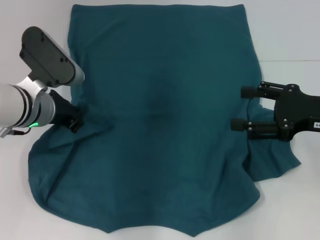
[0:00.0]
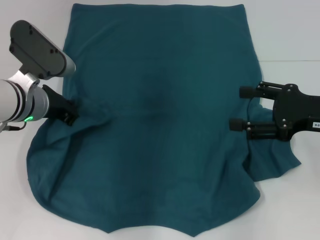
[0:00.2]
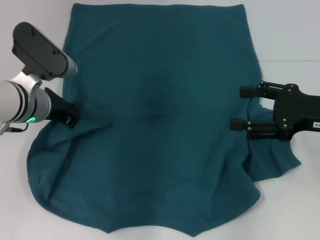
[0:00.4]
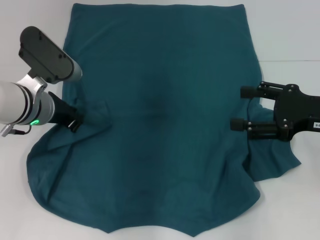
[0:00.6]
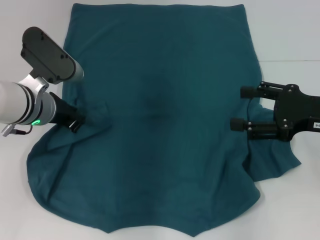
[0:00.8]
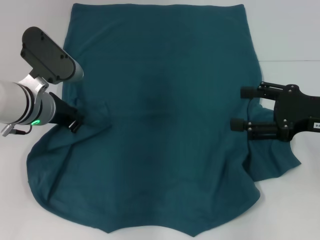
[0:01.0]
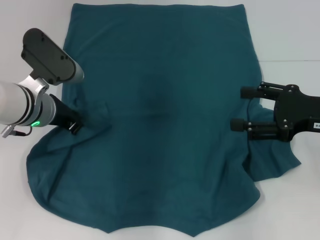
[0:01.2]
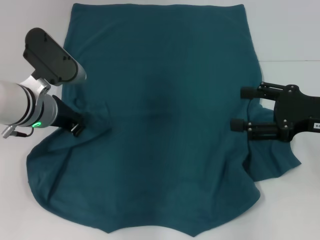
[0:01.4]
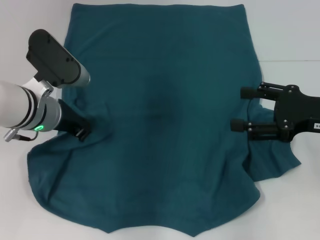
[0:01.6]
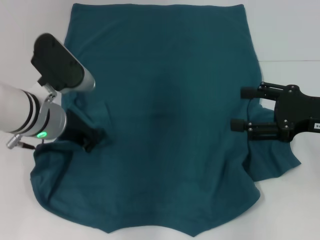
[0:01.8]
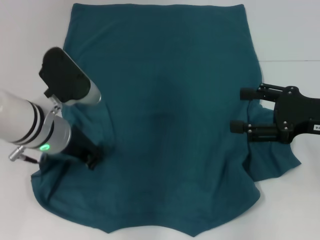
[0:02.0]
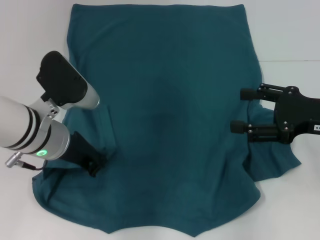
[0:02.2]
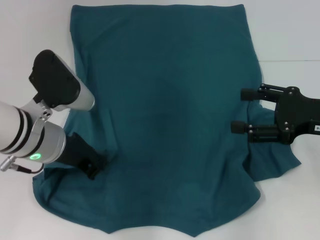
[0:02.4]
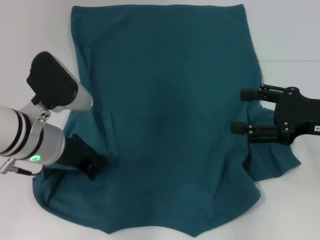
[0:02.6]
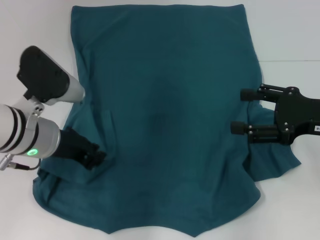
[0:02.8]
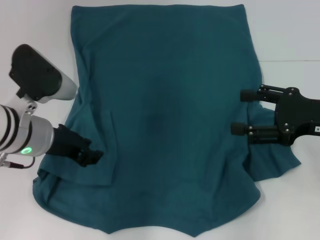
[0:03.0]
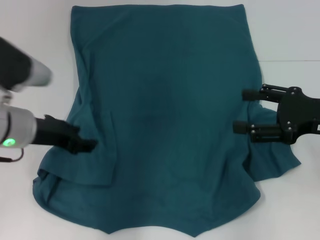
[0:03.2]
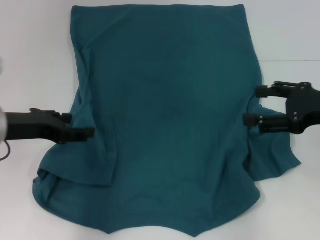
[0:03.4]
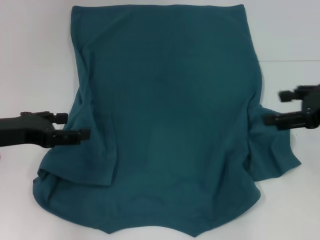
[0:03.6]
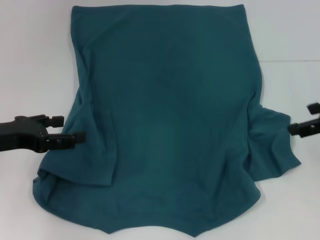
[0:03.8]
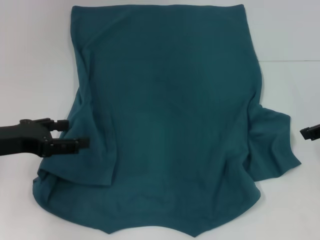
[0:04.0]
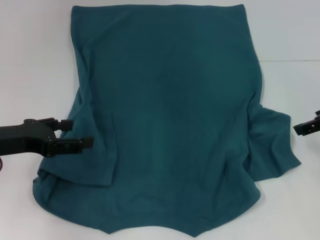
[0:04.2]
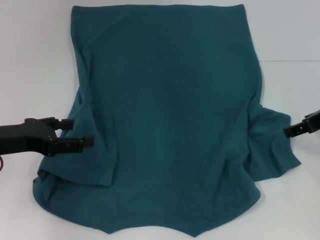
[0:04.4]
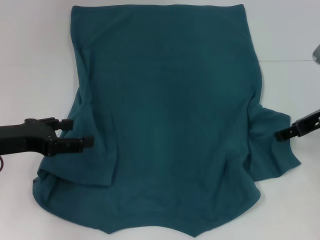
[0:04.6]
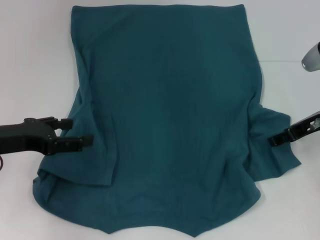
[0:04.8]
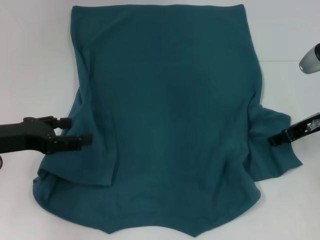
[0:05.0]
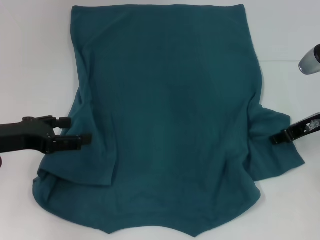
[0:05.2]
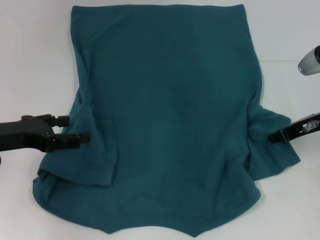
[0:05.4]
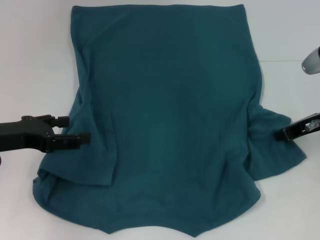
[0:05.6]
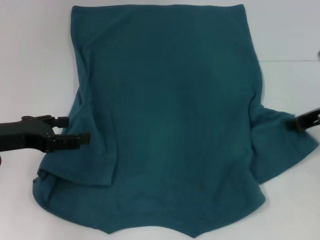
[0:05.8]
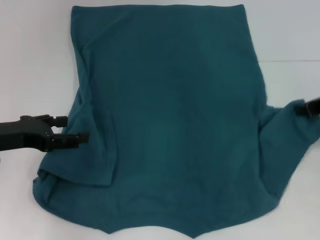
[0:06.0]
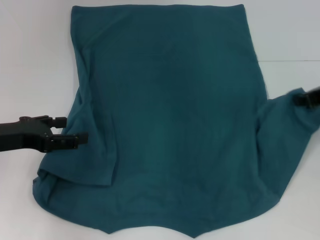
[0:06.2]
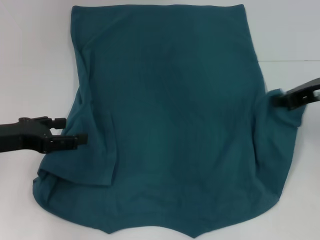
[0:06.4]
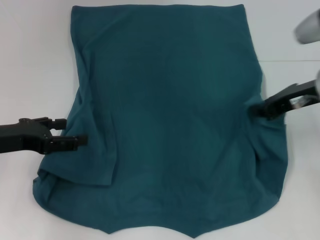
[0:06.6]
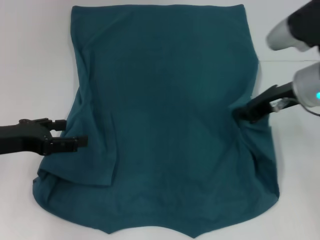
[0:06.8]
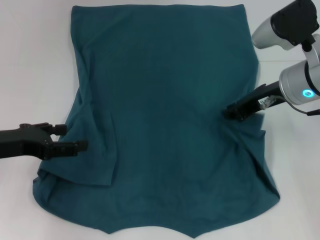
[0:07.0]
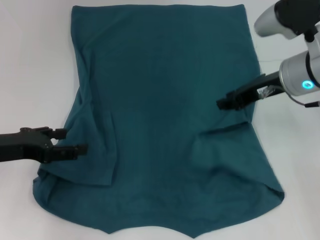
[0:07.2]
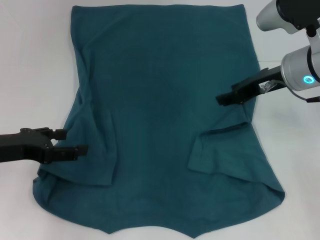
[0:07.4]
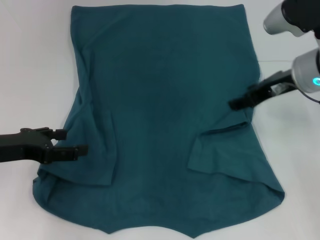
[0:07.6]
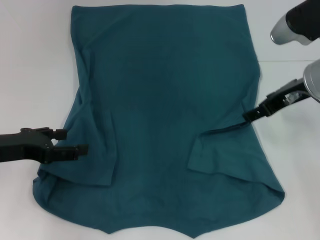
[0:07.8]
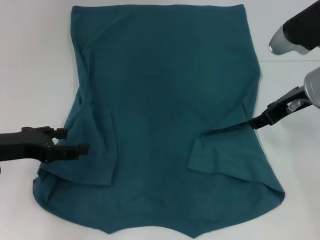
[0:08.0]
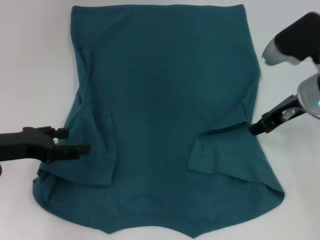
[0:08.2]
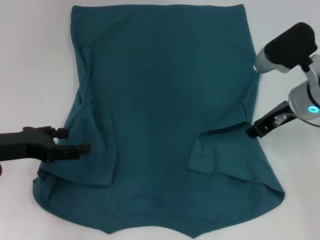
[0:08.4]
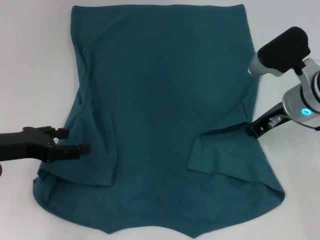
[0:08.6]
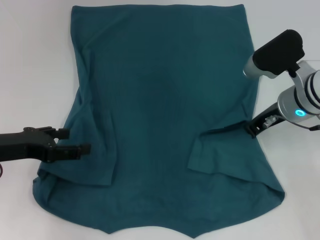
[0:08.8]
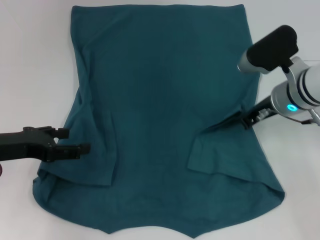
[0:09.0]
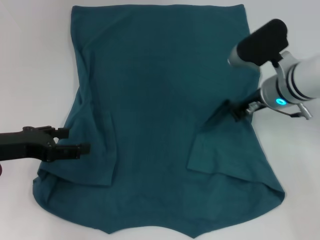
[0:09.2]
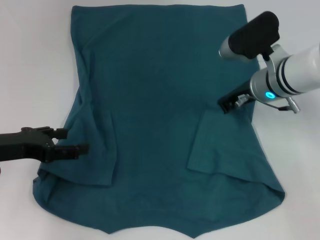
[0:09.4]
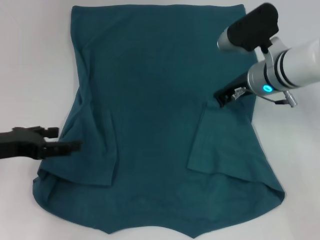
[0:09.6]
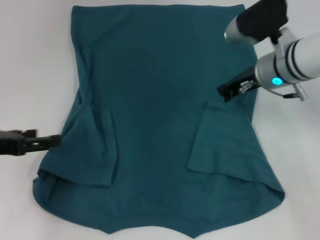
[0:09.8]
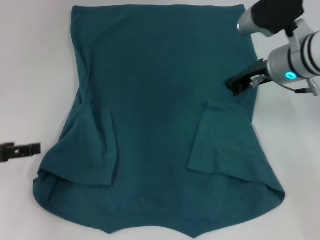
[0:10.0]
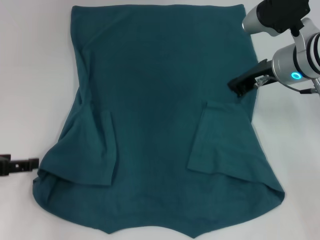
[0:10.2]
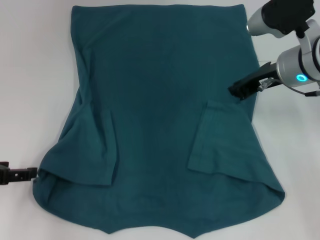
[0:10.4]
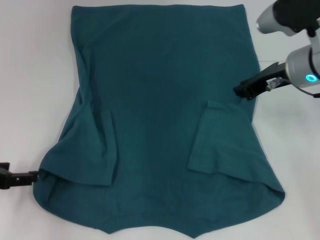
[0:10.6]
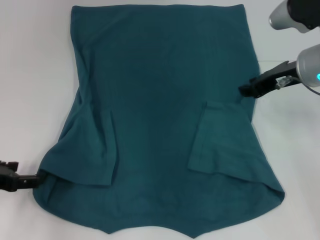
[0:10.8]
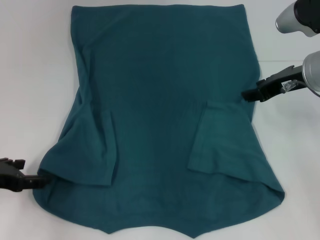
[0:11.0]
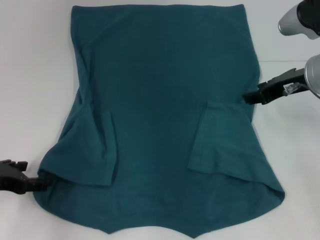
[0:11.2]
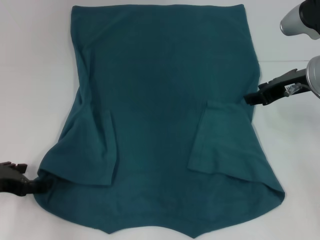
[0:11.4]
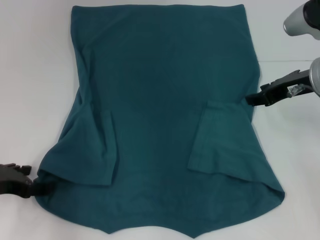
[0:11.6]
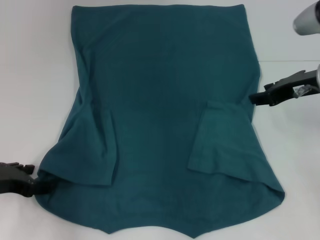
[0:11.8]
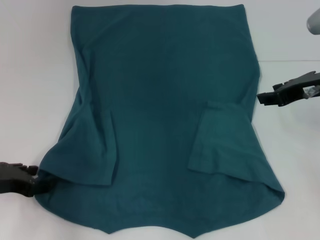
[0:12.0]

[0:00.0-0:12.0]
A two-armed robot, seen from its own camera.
Step, 0.0 to 3.0 s: Fold the bottom left sleeve with your left hand.
Step, 3.2 to 9.4 s: Fold the bottom right sleeve to the right.
0.0 to 1.6 s: The grippers stay close to where they were, moving slightly.
1.6 to 3.0 s: The grippers stay close to where they were, moving slightly.
3.0 to 4.4 s: The left gripper goes about 10 cm to the left, and opens up, while the right gripper moves forward, approximately 5 cm.
4.4 to 6.0 s: The right gripper closes up.
6.0 to 7.6 s: The right gripper heads to the left, covering roughly 10 cm, and opens its fingers.
7.6 to 9.0 s: The right gripper goes roughly 5 cm downward, and closes its fingers.
9.0 to 10.4 s: The left gripper ends up about 5 cm from where it was. Meanwhile the right gripper moves upward, roughly 5 cm.
10.4 to 12.0 s: The right gripper moves to the right, approximately 5 cm, and opens.

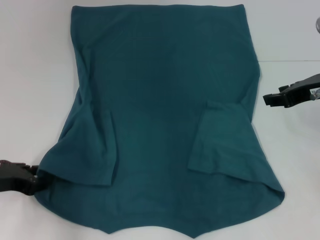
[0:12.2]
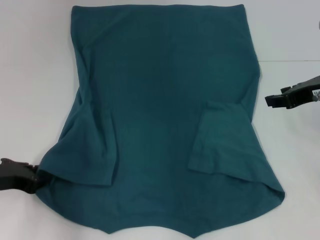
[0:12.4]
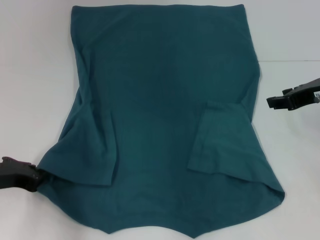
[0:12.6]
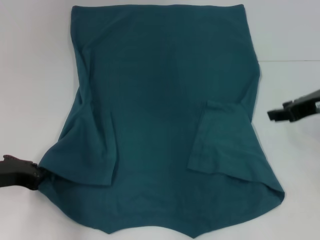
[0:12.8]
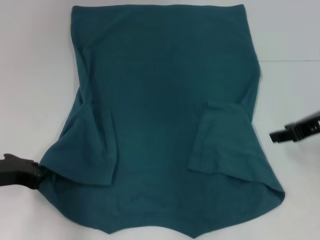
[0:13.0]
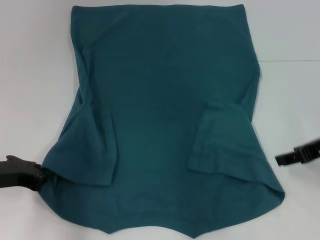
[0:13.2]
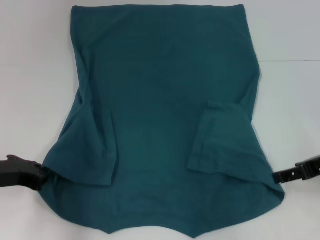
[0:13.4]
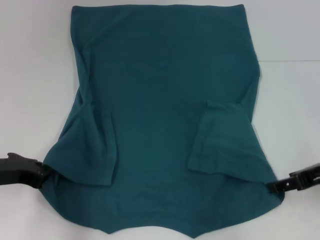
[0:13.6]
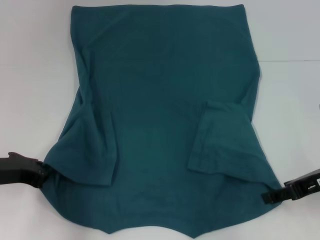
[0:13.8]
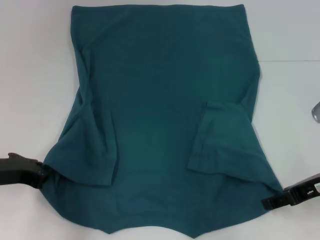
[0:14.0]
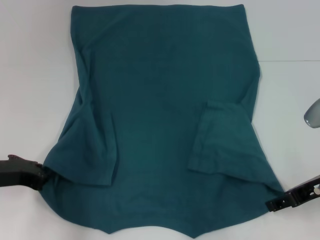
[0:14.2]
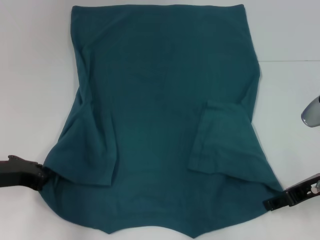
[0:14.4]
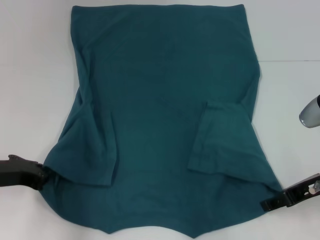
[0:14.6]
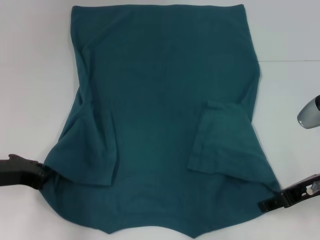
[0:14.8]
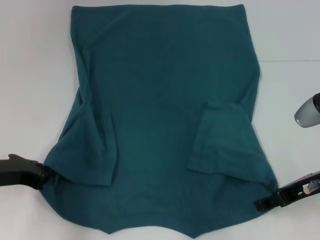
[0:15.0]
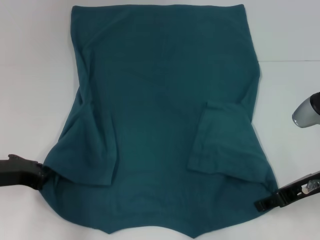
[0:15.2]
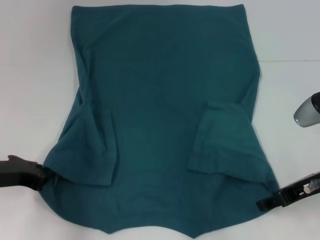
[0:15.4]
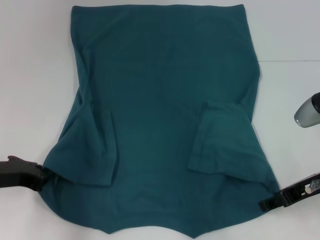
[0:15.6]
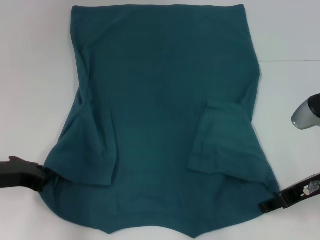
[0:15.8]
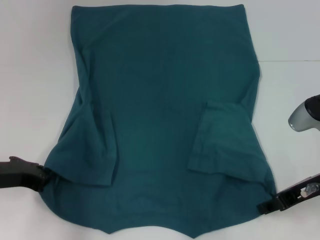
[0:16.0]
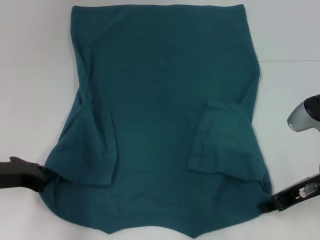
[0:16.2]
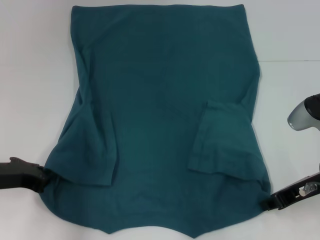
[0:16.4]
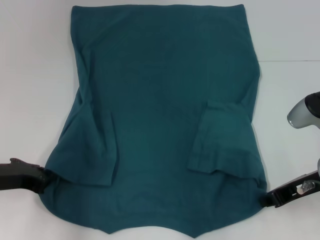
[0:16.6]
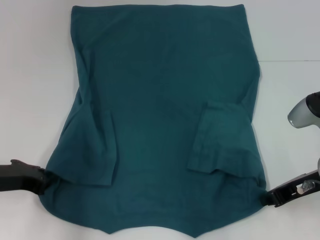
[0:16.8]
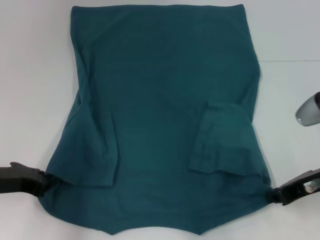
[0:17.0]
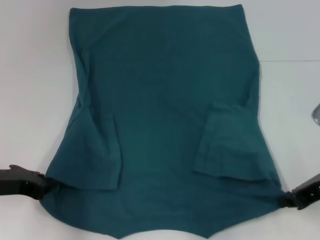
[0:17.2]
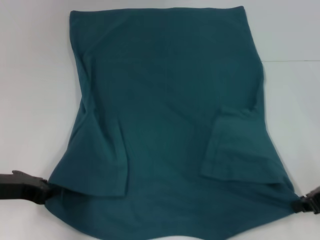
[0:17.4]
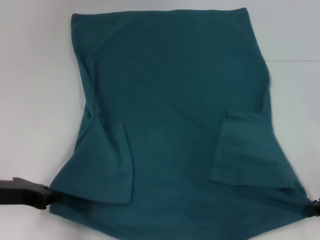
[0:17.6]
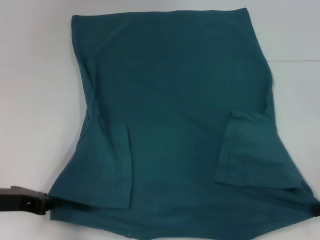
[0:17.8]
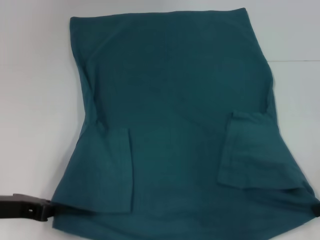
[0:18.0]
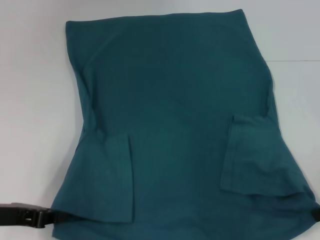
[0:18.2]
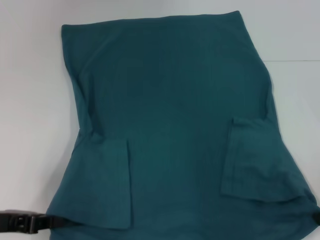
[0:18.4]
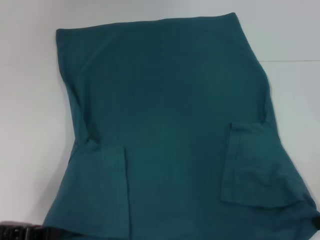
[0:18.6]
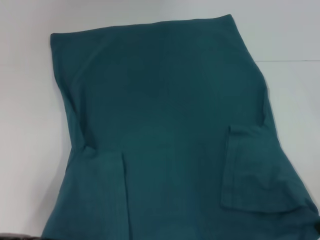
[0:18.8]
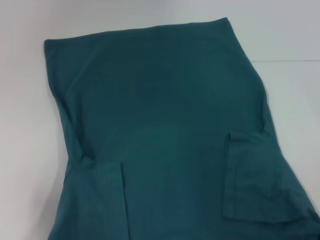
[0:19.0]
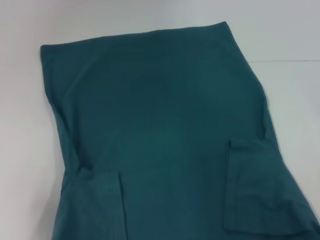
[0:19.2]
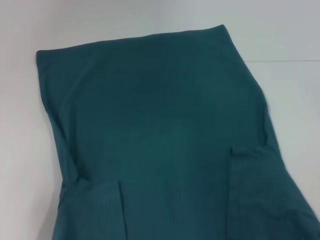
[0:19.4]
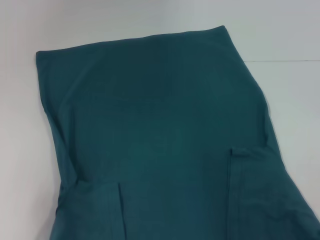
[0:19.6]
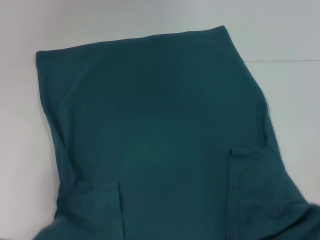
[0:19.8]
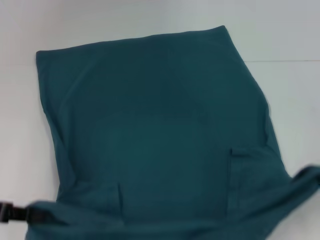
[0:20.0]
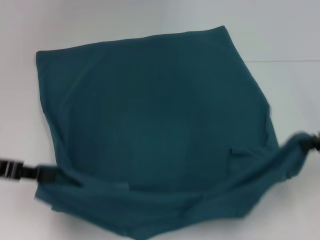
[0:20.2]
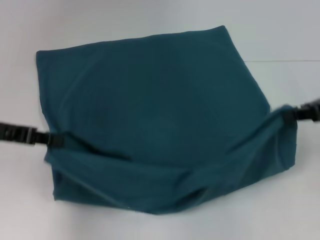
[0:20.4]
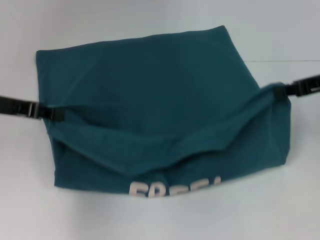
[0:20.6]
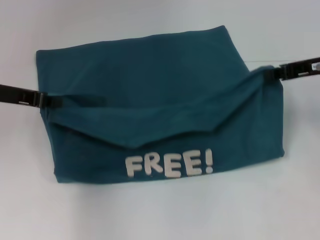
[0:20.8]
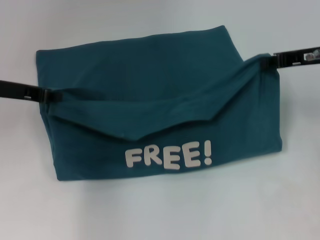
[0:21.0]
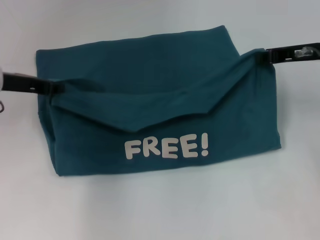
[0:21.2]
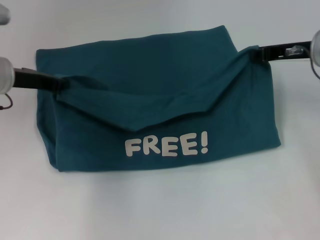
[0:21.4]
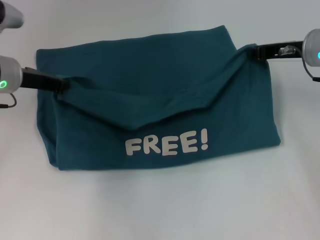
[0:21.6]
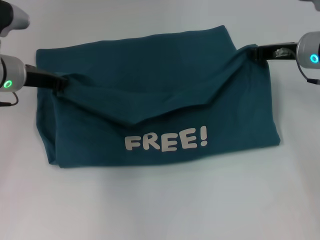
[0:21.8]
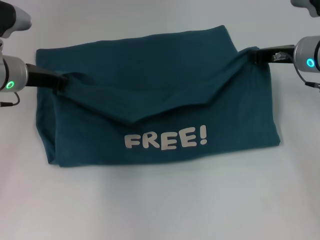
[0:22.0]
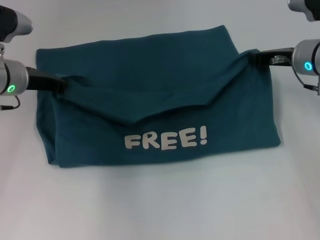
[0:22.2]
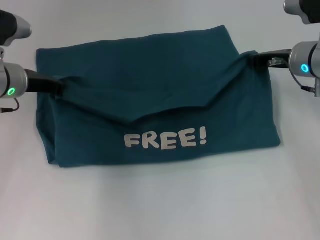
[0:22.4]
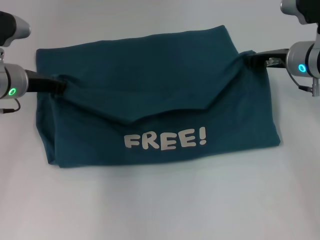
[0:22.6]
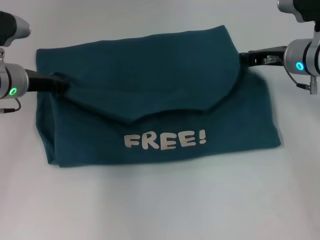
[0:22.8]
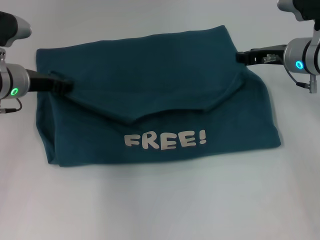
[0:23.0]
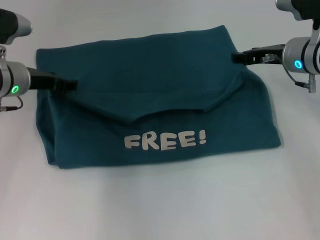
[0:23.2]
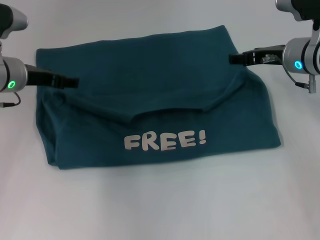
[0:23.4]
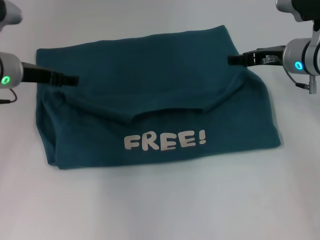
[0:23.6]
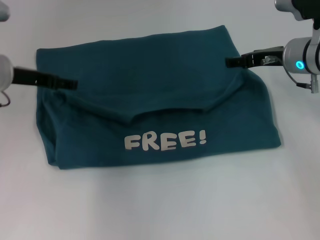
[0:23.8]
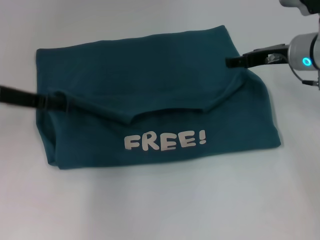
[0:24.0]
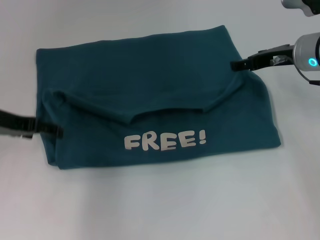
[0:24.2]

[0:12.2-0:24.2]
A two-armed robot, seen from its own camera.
Step, 12.8 to 16.2 s: Grab the bottom right corner with your right hand.
Step, 16.4 to 23.2 s: Fold the clothes to the left.
Step, 16.4 to 23.2 s: Fold the clothes to the right.
12.2 to 13.8 s: The left gripper closes its fingers. Meanwhile the right gripper moves backward and downward, roughly 10 cm, and opens its fingers.
13.8 to 15.2 s: The grippers move only a little.
15.2 to 16.6 s: The right gripper closes.
16.6 to 18.2 s: The right gripper travels to the right by some 5 cm.
18.2 to 19.8 s: The left gripper changes place by roughly 5 cm.
19.8 to 21.2 s: The two grippers go roughly 20 cm forward.
21.2 to 22.6 s: The left gripper changes place by approximately 5 cm. The right gripper shifts by roughly 5 cm.
22.6 to 24.2 s: The right gripper opens. Meanwhile the left gripper heads backward, covering roughly 5 cm, and opens.
